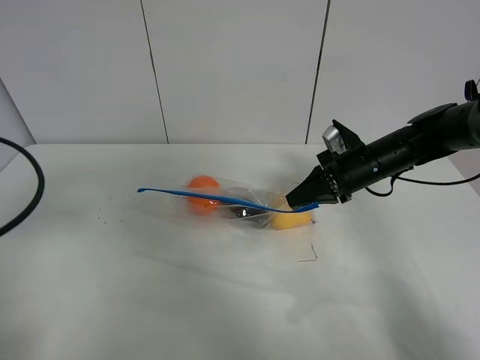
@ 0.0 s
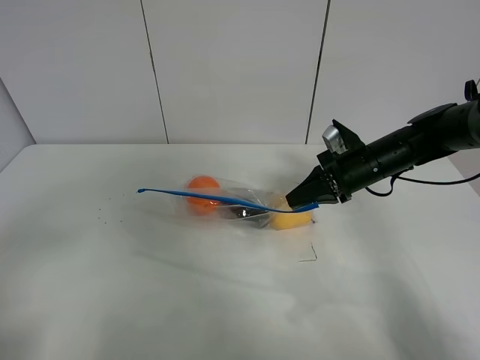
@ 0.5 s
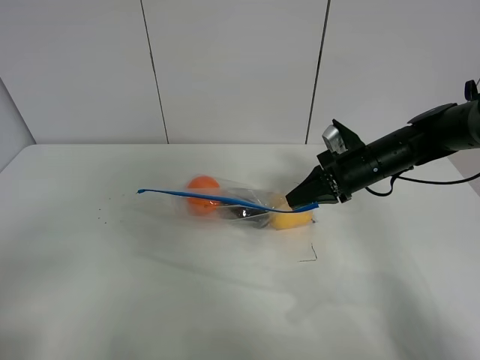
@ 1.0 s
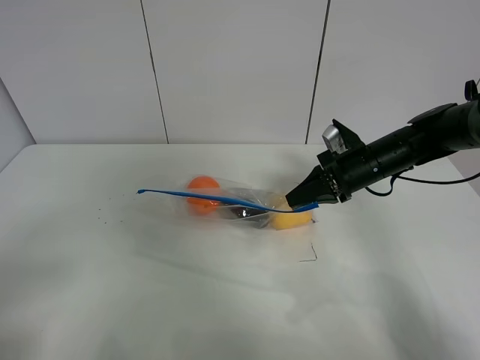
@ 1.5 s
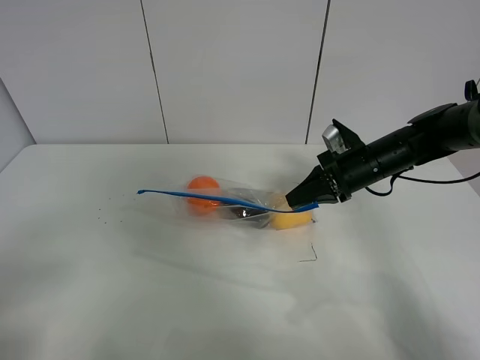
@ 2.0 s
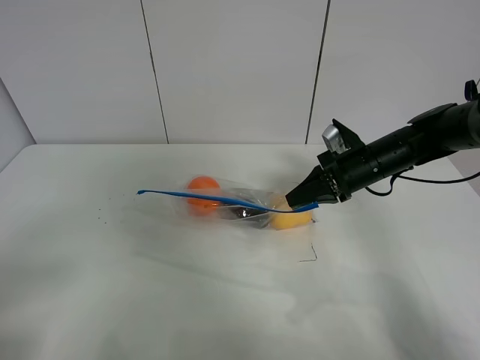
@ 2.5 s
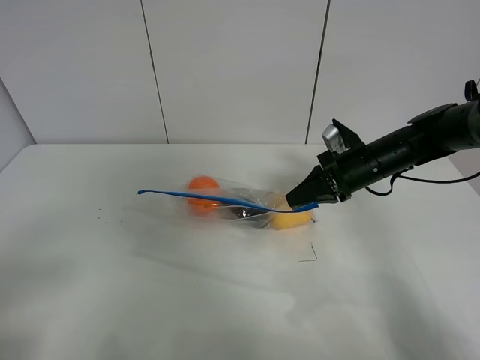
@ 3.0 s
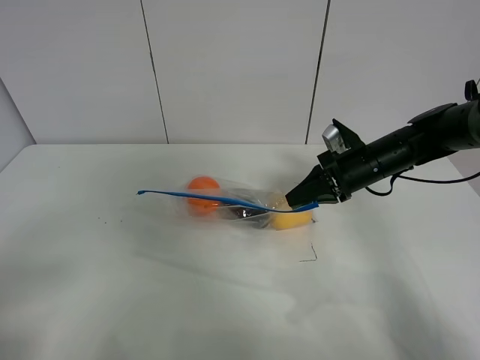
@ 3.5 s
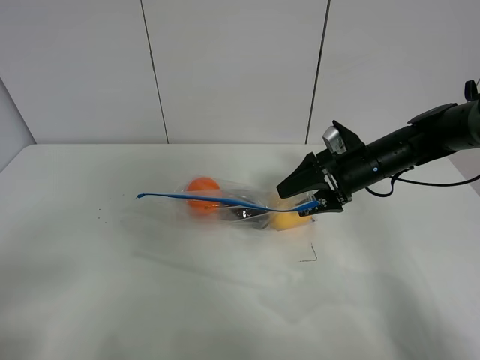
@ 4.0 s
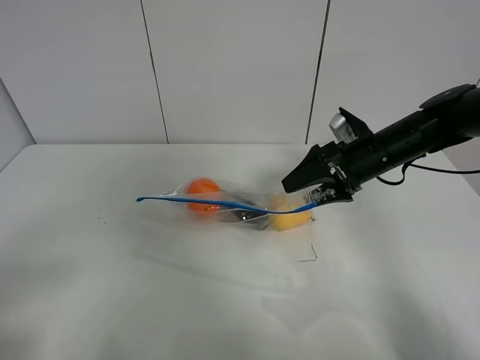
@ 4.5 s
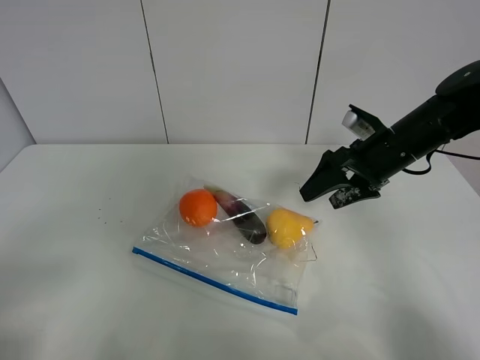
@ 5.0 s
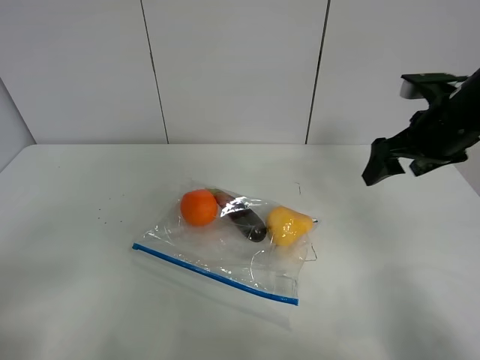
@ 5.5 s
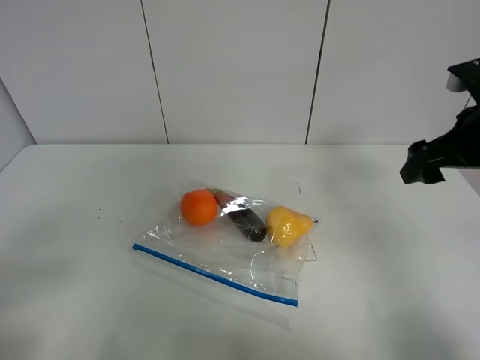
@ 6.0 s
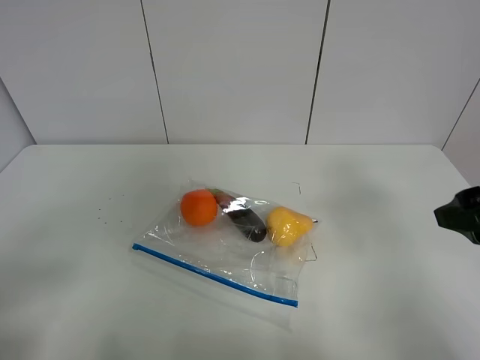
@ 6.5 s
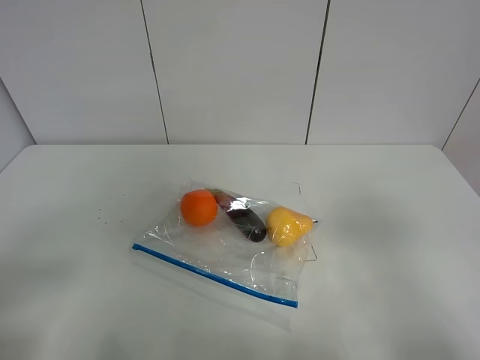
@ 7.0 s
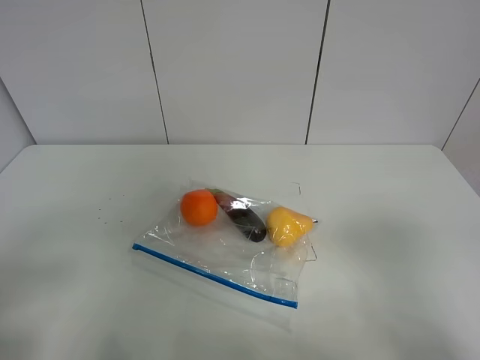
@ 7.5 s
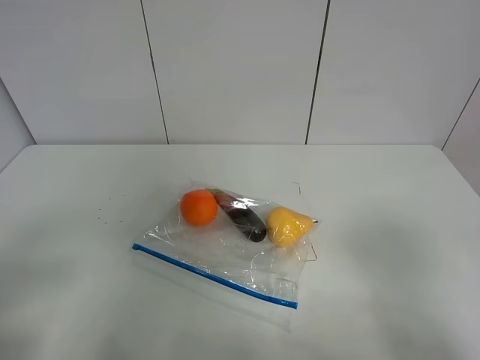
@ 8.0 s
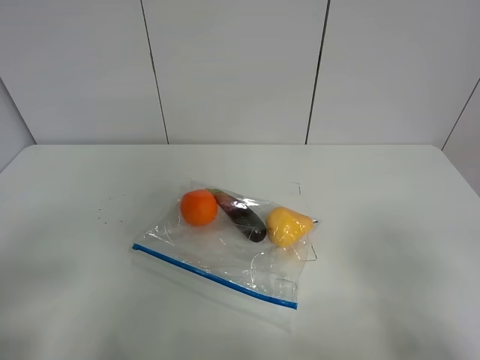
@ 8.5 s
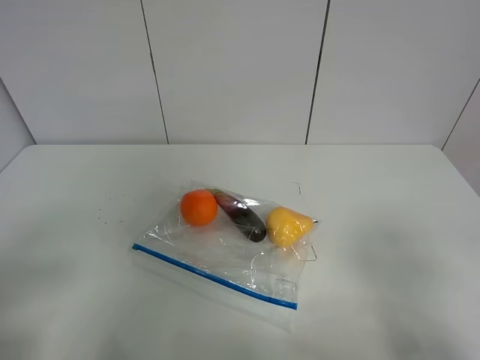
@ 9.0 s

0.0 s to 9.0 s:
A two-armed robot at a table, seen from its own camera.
Step, 0.0 to 4.5 s: Place the fruit bag with right gripper.
0.0 to 2.0 s: The left gripper travels backward by about 15 cm.
2.0 to 4.5 s: The right gripper opens its fingers.
4.5 to 7.0 s: The right gripper moves backward and upward, about 35 cm.
